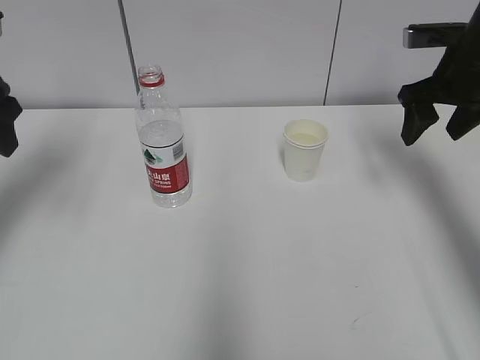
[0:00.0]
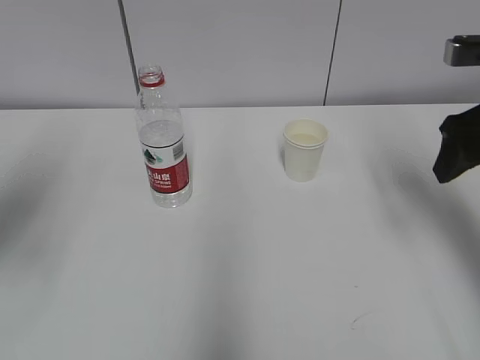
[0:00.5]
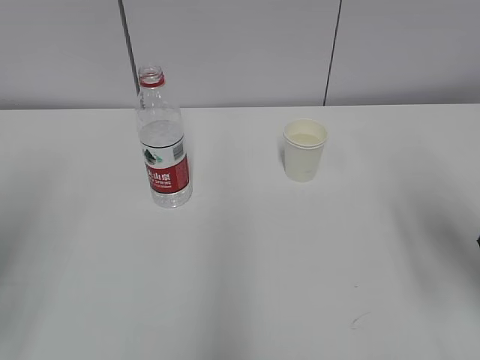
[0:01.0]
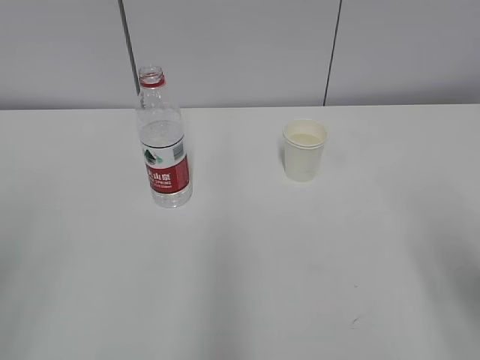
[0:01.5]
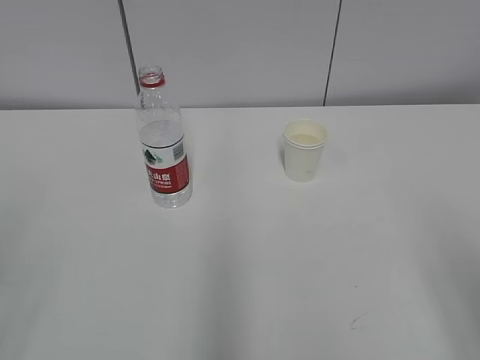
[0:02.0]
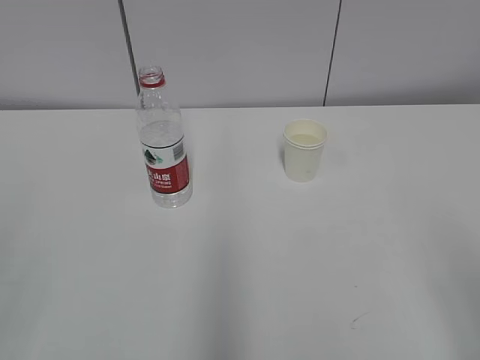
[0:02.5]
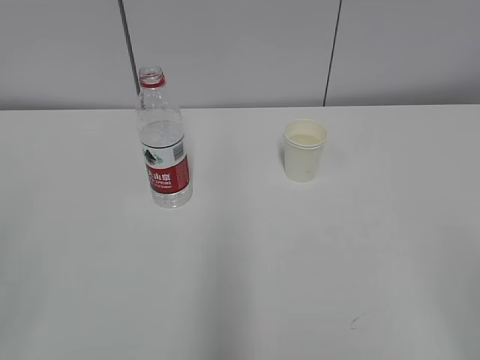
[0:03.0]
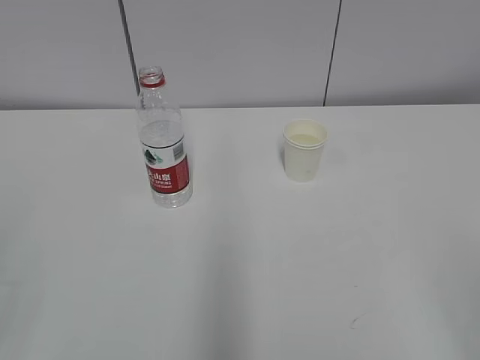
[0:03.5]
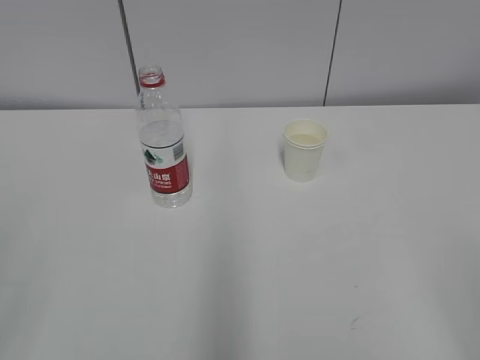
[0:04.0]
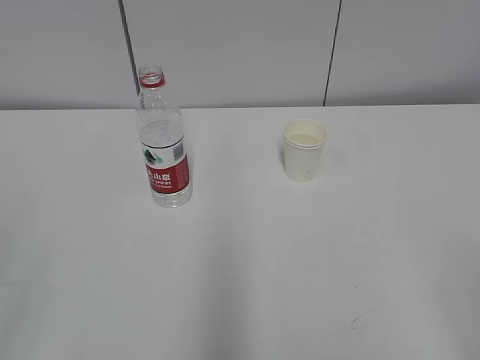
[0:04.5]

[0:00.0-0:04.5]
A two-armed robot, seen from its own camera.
0.0 to 2.0 s: The grippers both shift backward by some 30 cm.

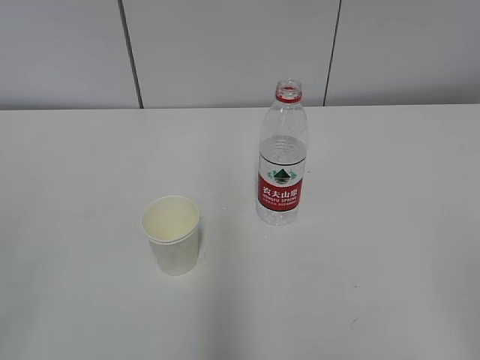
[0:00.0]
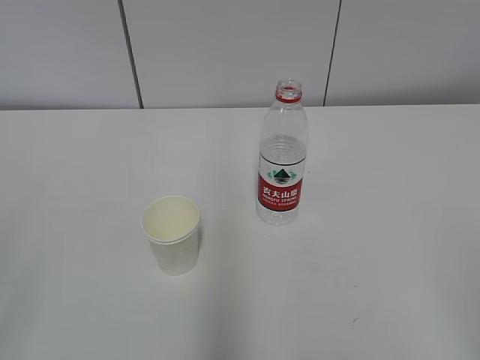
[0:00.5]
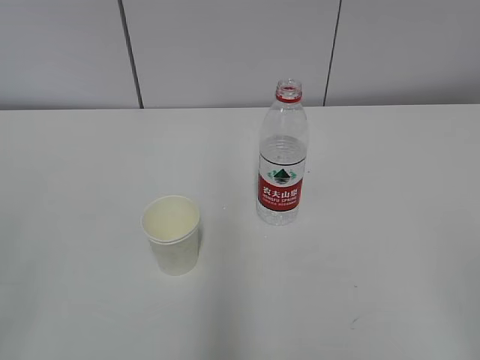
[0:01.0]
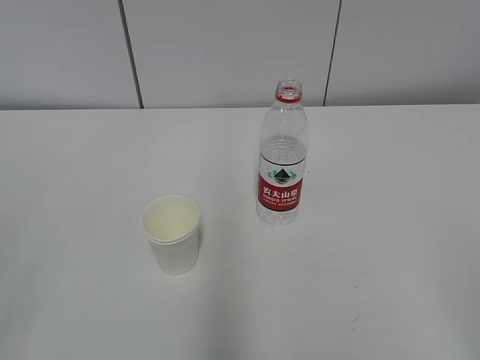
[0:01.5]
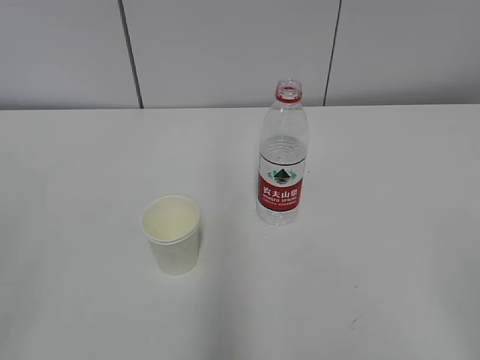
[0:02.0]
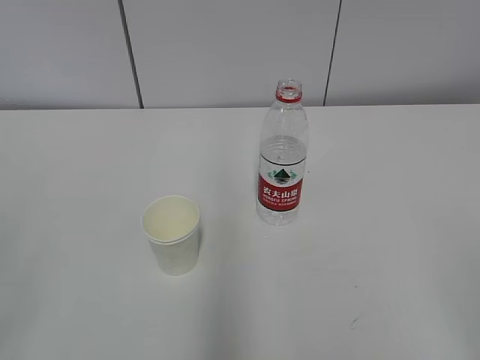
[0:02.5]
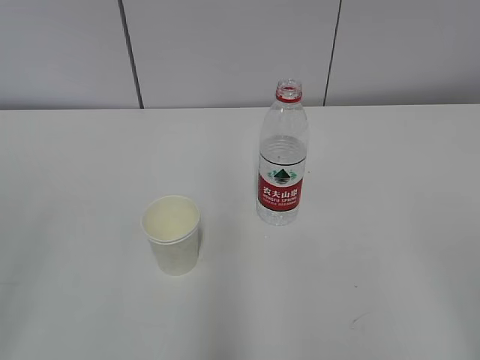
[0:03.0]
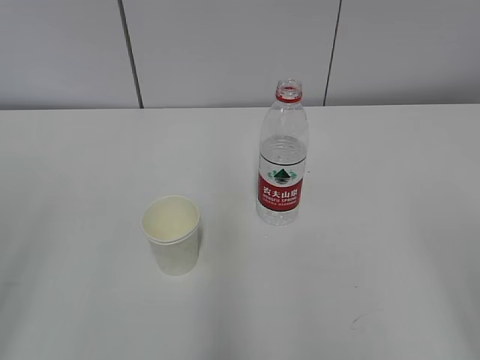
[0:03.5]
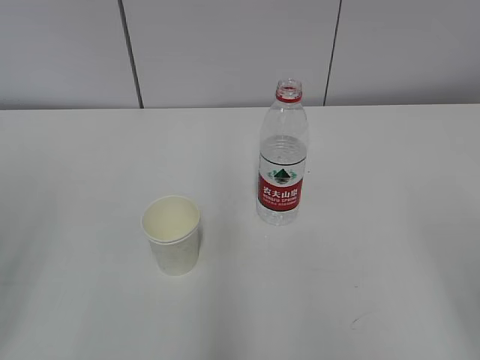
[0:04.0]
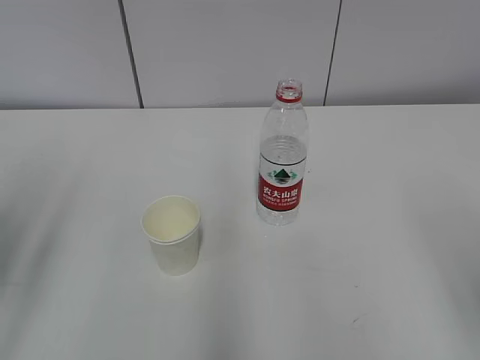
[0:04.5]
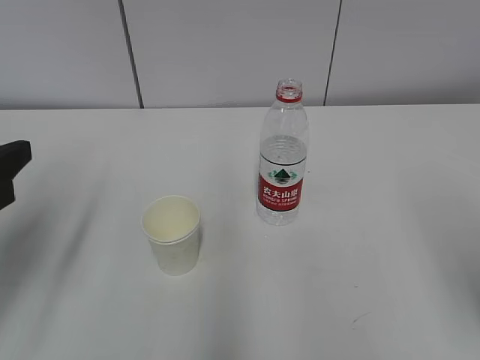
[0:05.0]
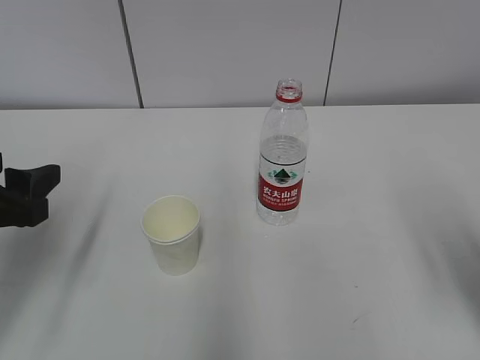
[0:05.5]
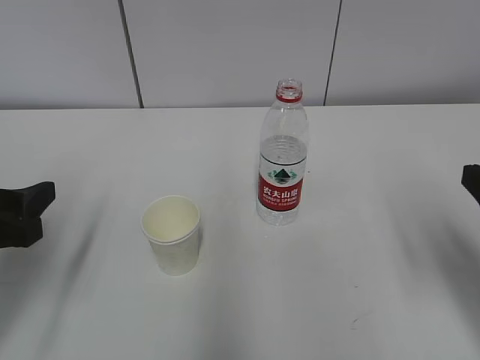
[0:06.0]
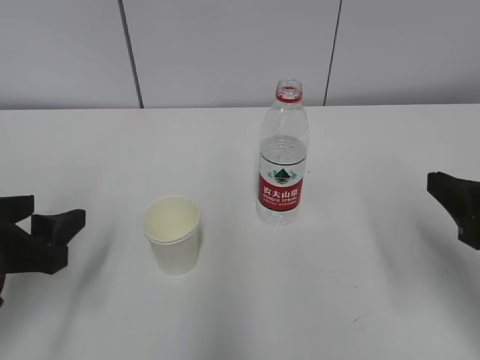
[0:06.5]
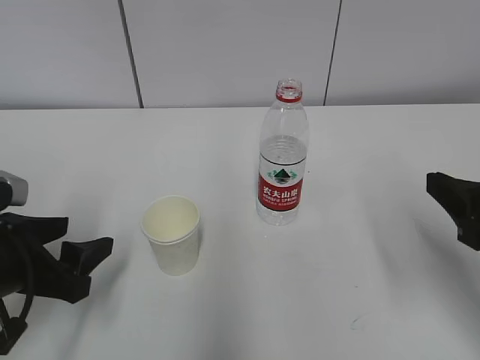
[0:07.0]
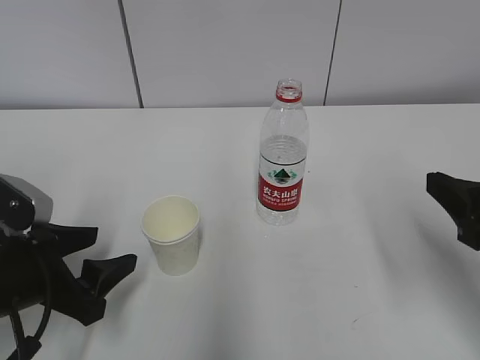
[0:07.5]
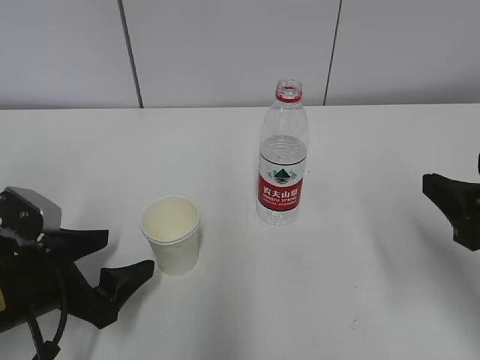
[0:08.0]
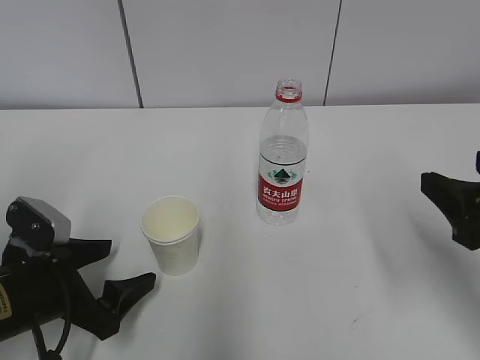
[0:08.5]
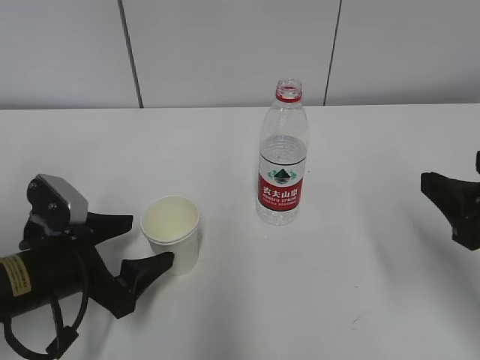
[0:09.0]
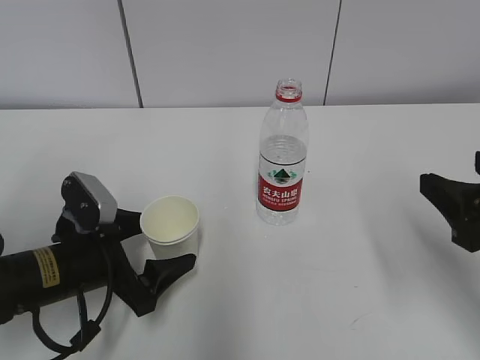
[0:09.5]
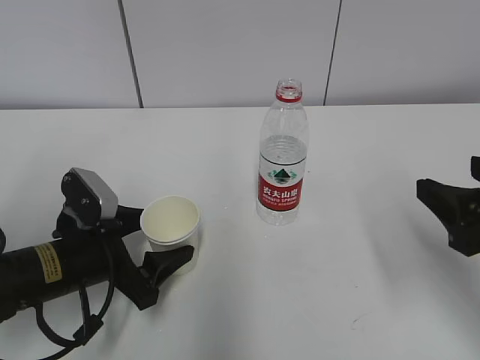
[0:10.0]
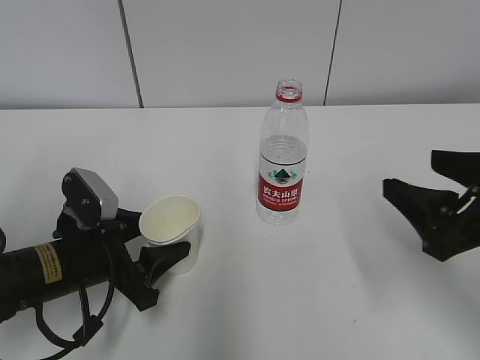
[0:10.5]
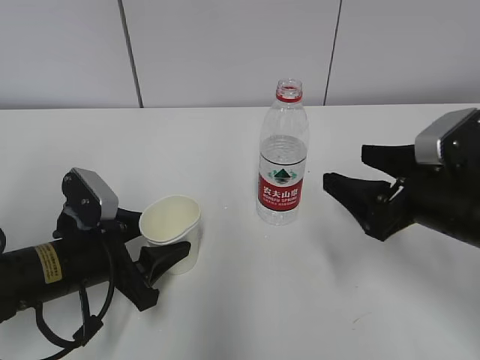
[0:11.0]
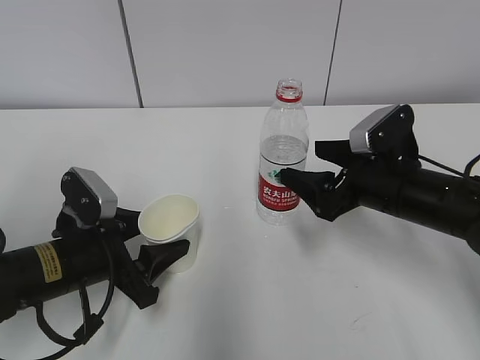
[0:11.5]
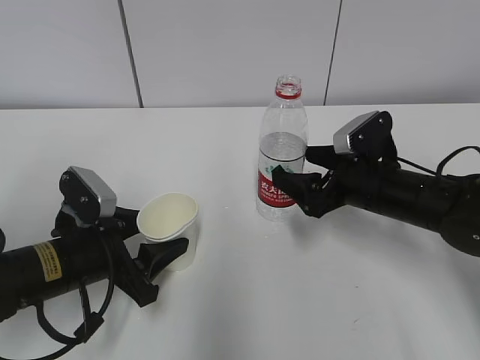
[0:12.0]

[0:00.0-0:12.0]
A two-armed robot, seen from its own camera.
Step, 0.0 to 9.0 s: Grab the paper cup with the left hand.
Step, 9.5 to 11.0 s: Grab the water bottle with the right hand.
4.0 to 6.0 s: The right gripper is displaced forward by some 15 cm; the left gripper goes about 15 cm forward and downward.
6.0 to 8.0 s: The left gripper goes approximately 10 cm downward, and opens.
8.0 to 10.0 s: The left gripper shifts by some 5 cm.
10.0 to 12.0 s: The left gripper closes up. The right gripper goes roughly 20 cm forward, downward and to the left.

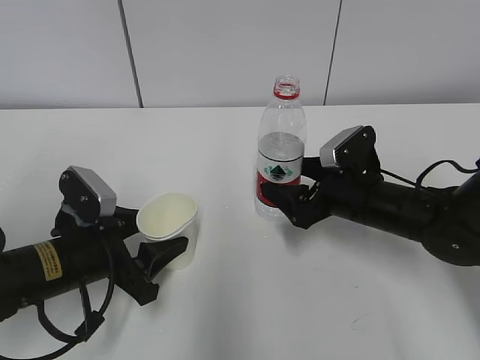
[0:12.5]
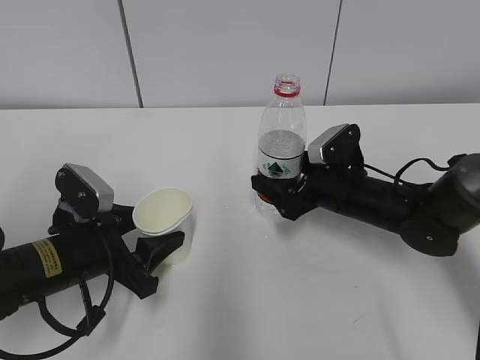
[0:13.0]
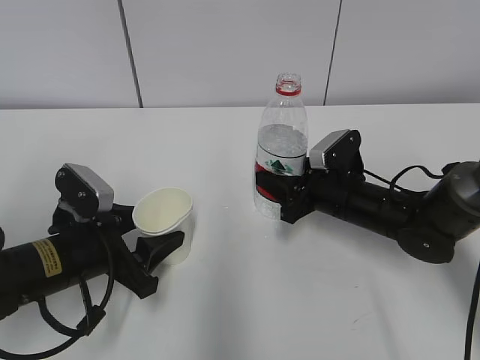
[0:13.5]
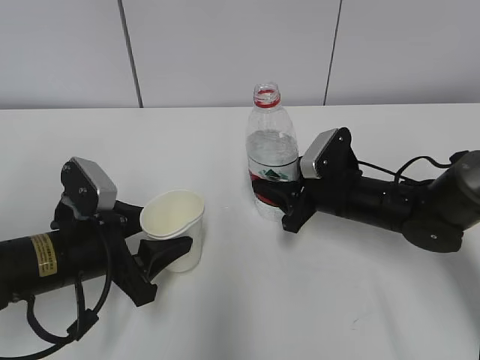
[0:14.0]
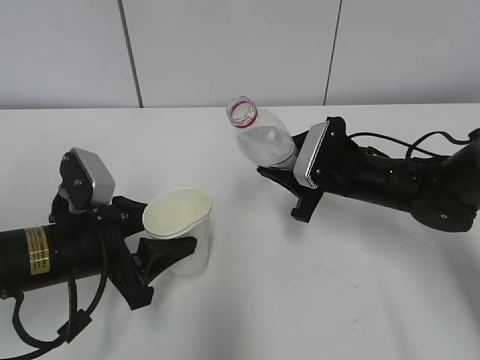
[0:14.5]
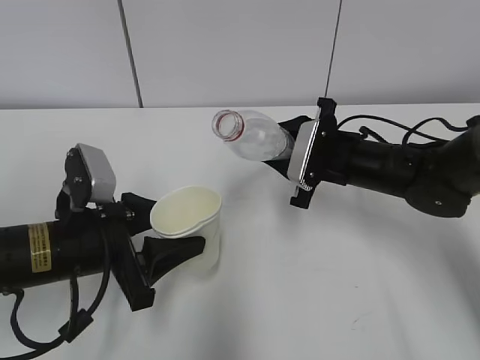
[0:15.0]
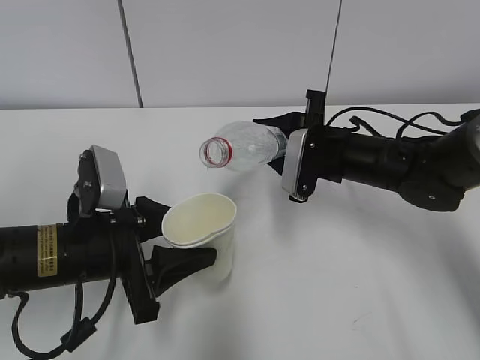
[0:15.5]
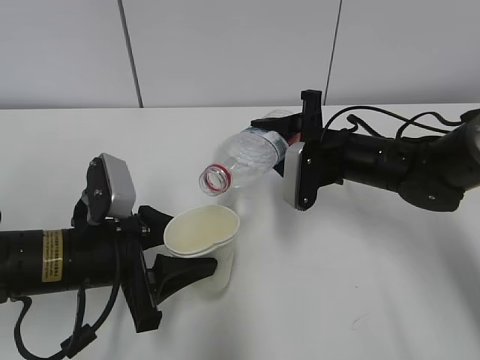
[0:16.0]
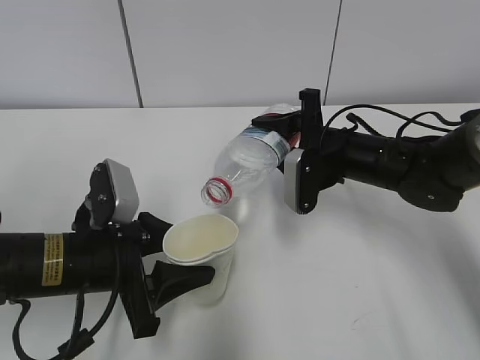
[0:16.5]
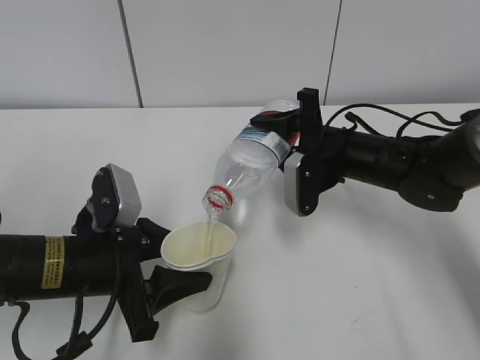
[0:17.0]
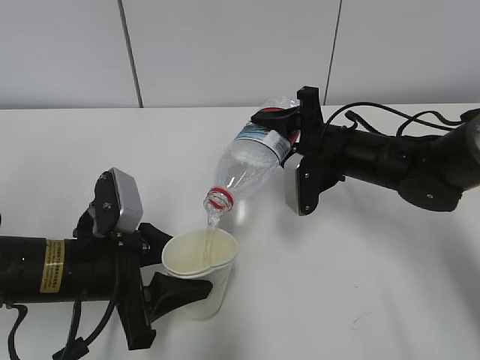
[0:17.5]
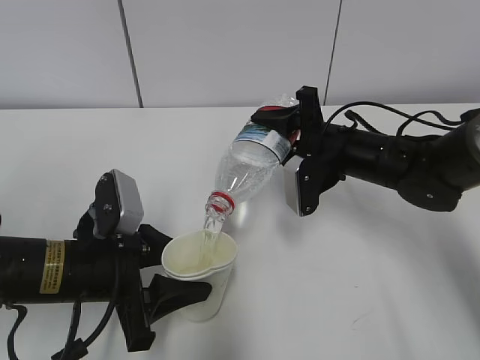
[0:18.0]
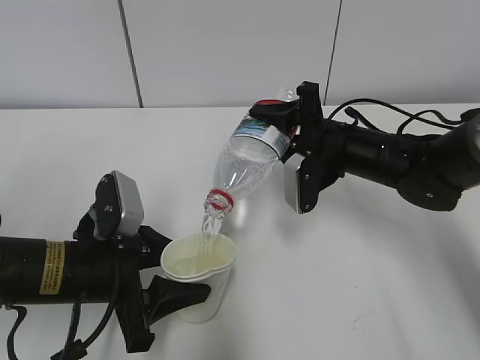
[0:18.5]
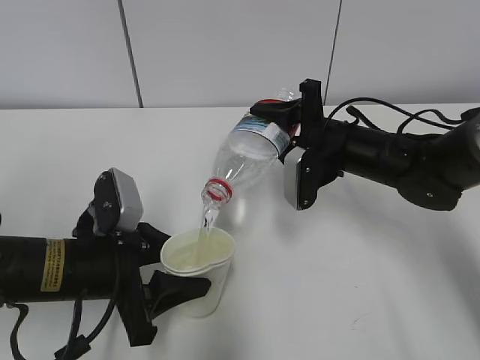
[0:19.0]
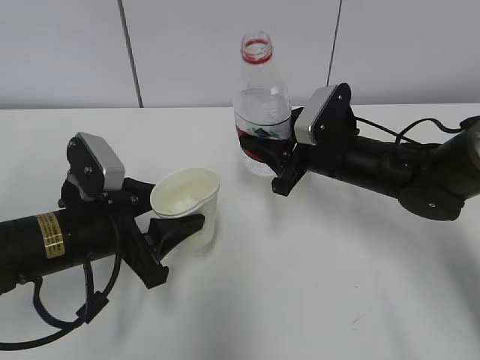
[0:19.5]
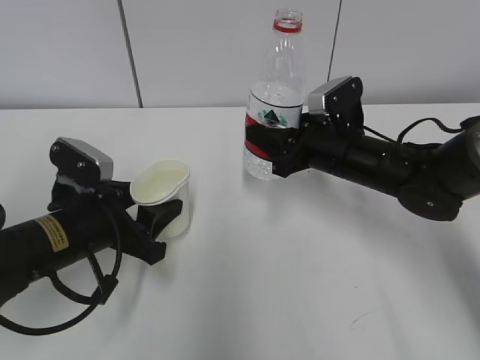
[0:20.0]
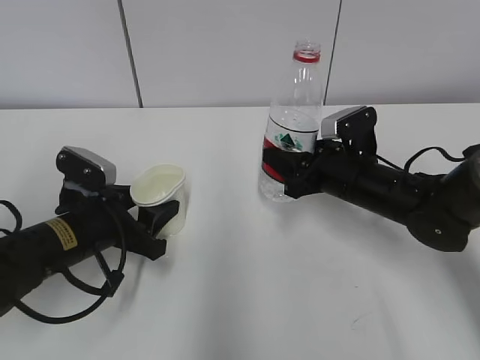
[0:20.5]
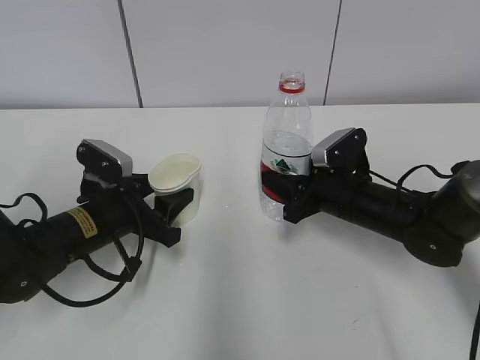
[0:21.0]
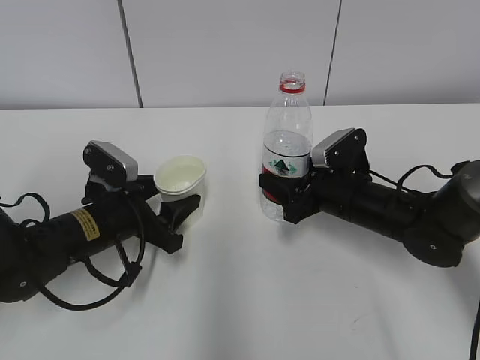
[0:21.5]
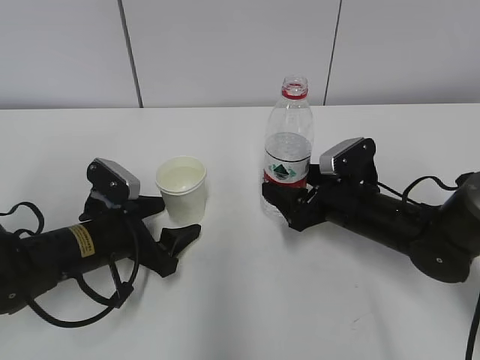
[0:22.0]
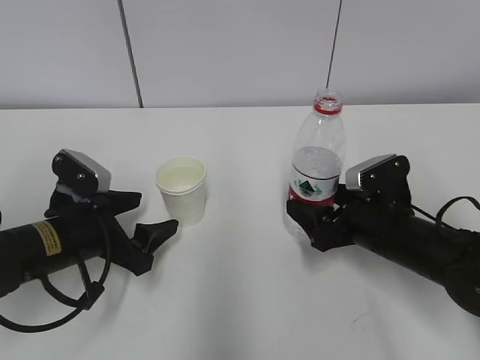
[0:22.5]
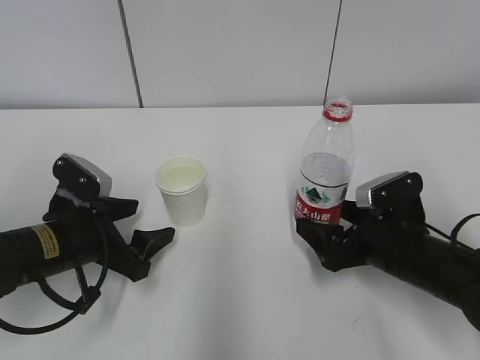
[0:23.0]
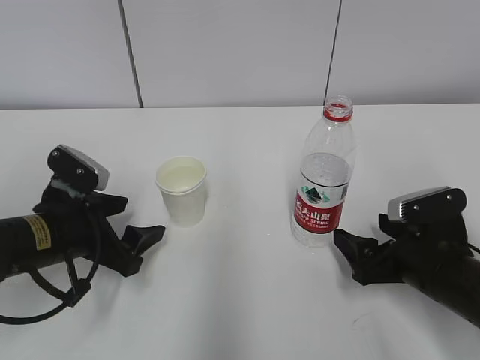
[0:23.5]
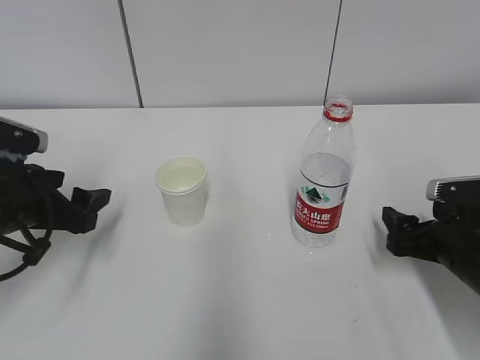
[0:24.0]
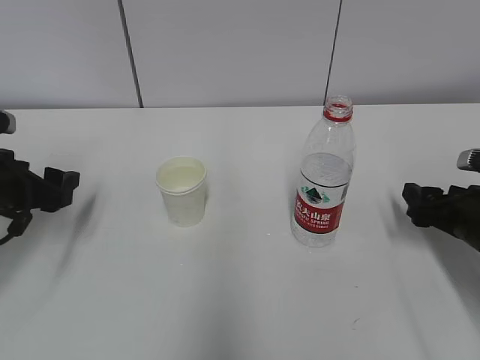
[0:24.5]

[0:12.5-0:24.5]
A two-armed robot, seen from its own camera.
Step, 14.0 to 16.0 s: Fill water with the left hand.
Step, 14.0 to 16.0 s: Pour water with the right hand.
Step, 16.5 to 17.5 s: Place the paper cup with the left hand.
Step, 18.0 to 19.0 s: Place the water bottle with the right hand.
12.5 to 14.5 s: The right gripper closes up.
16.5 to 18.5 s: The grippers move only a little.
18.5 to 20.5 s: The left gripper heads forward, covering about 5 cm.
20.5 to 22.5 s: The left gripper opens, while the right gripper heads backward, covering approximately 5 cm, and opens.
22.5 to 24.5 s: The right gripper travels to the right by approximately 10 cm; the left gripper moves to the left and upward, roughly 10 cm.
